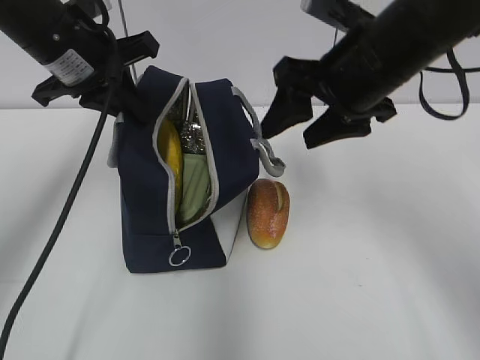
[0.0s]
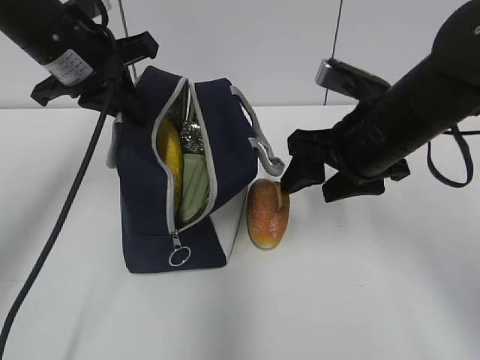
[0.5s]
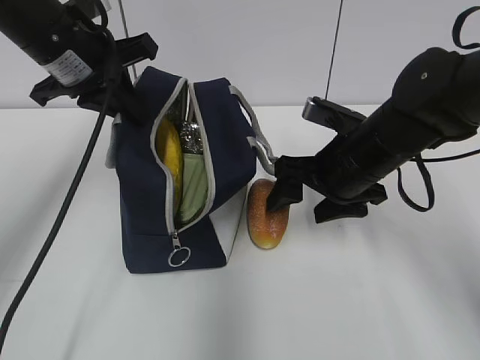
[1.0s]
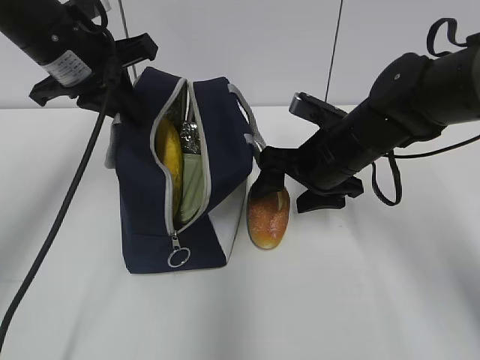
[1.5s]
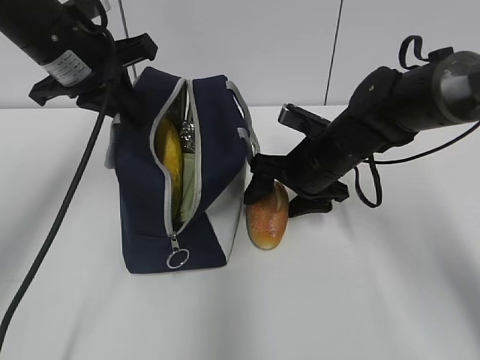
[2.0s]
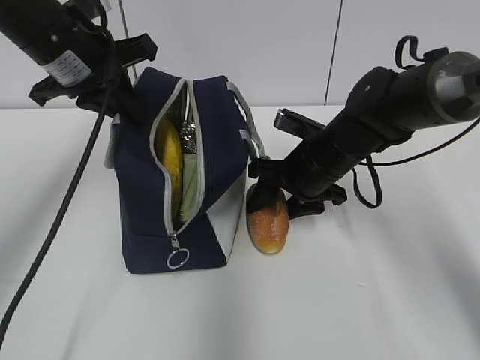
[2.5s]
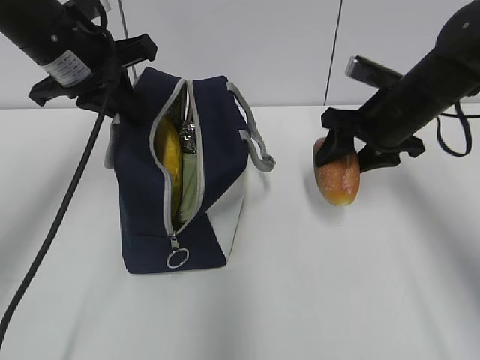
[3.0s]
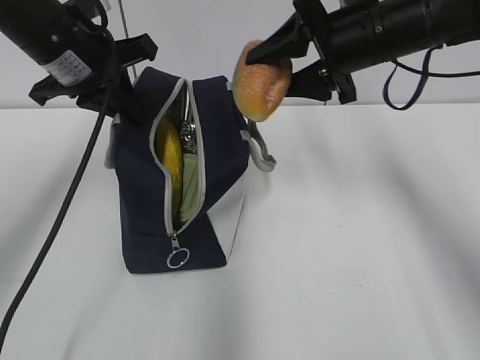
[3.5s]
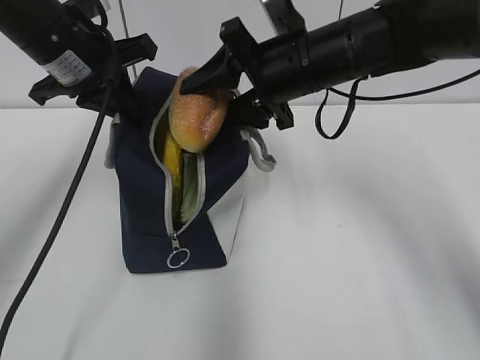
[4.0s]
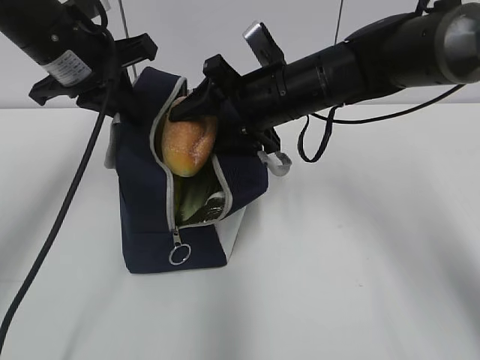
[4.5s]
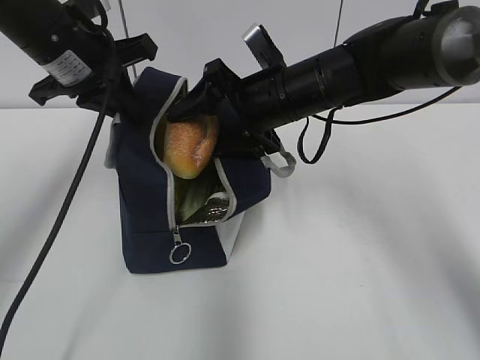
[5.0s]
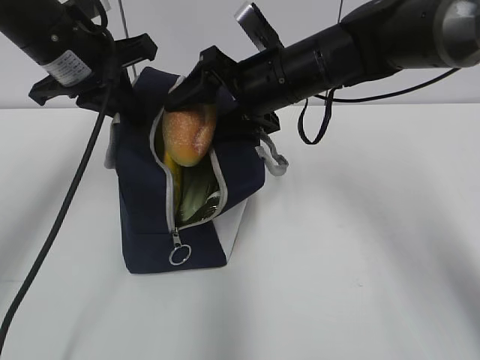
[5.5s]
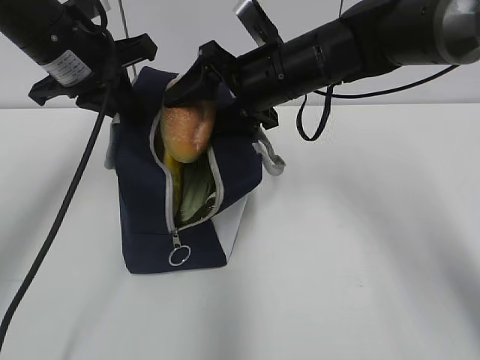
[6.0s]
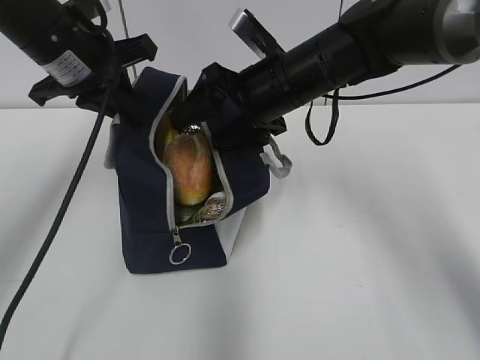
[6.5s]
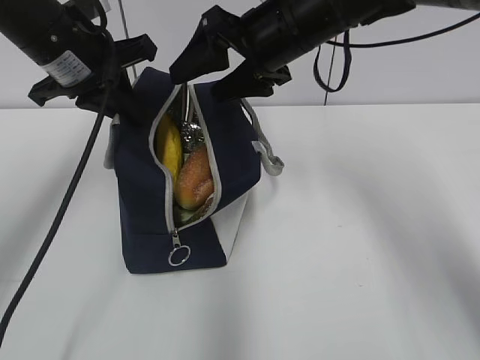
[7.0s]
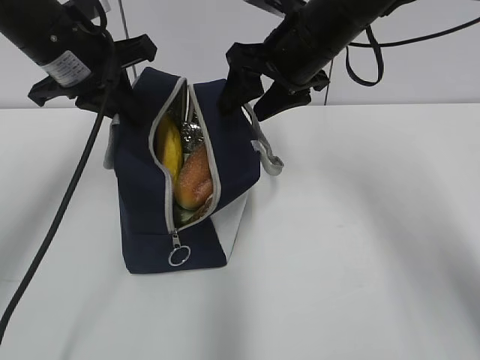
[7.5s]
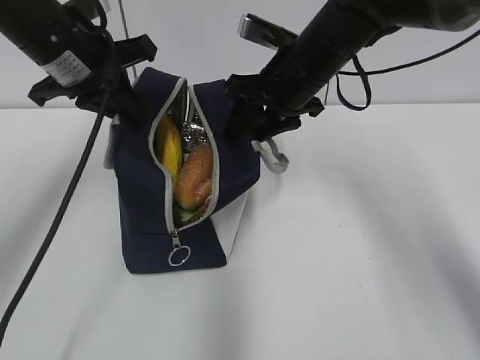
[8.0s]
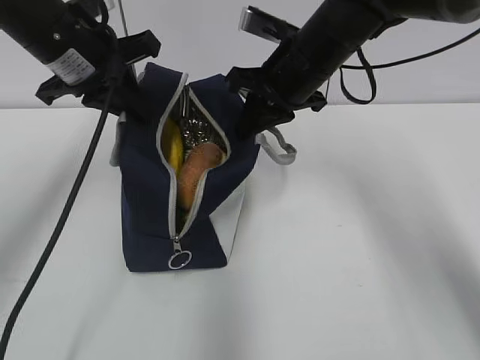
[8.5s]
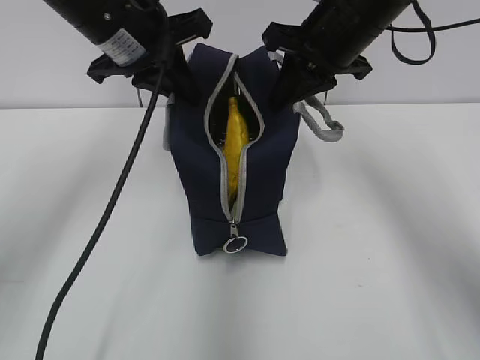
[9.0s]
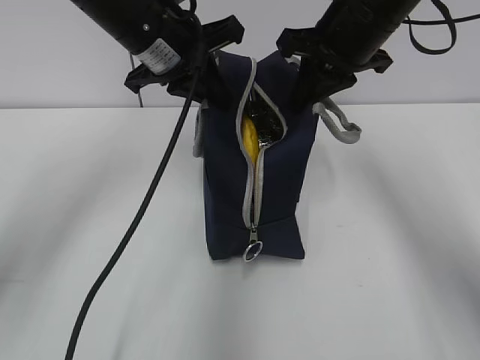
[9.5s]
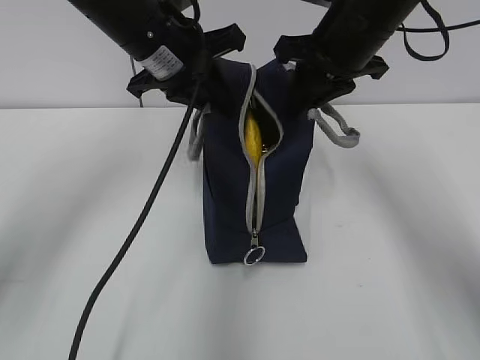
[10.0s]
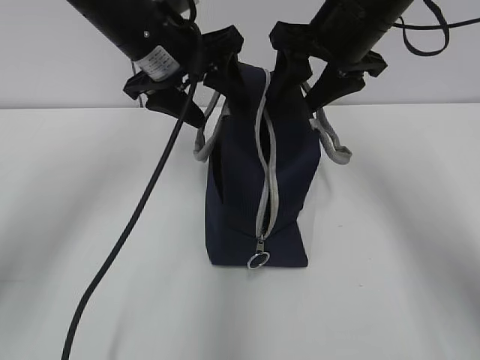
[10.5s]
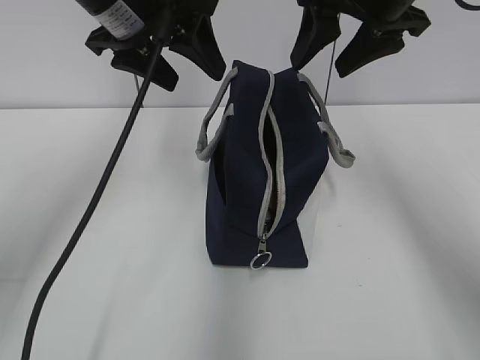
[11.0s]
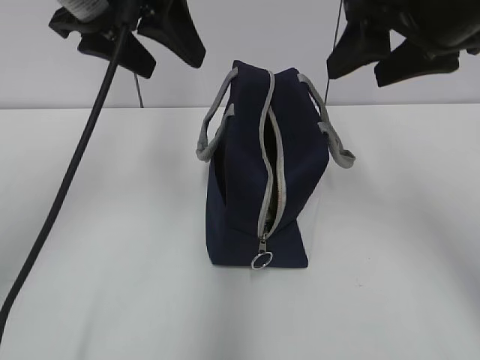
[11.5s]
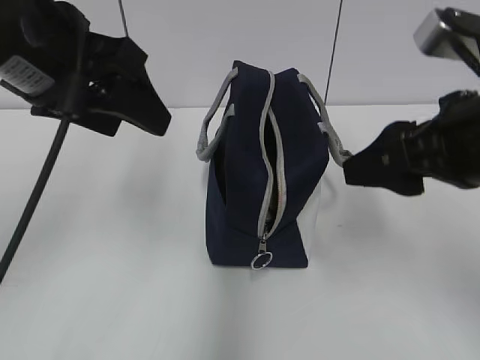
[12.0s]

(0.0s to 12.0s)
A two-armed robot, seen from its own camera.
Step, 0.0s - 2.0s: Grab the bread with your right hand.
Step, 2.5s - 7.0s: Place it into the bag with your right hand.
Step, 9.0s - 9.5s: Move the lunch bag to the right.
0.0s - 2.0s: The right gripper goes roughly 15 cm downward.
2.0s - 4.0s: The right gripper moves upward, about 15 cm.
4.0s - 6.0s: The grippers make only small movements.
8.0s - 10.0s: The left gripper goes approximately 10 cm to the right. The right gripper travels upward by some 5 cm, and closes.
10.0s - 12.0s: The right gripper moves backward, approximately 15 cm, and opens up; the left gripper shifts some 15 cm backward and to the left, and opens its fingers.

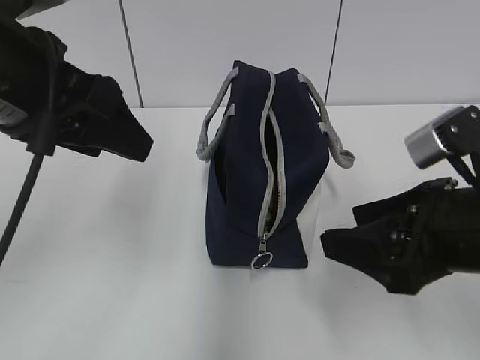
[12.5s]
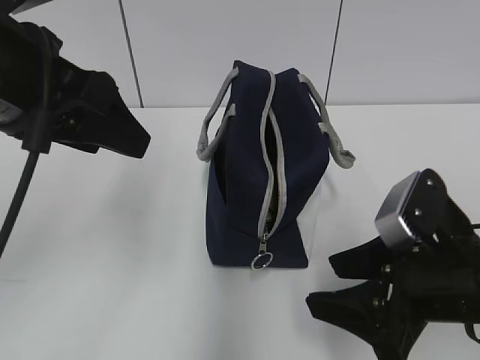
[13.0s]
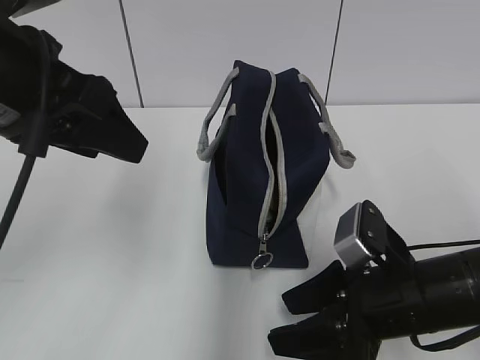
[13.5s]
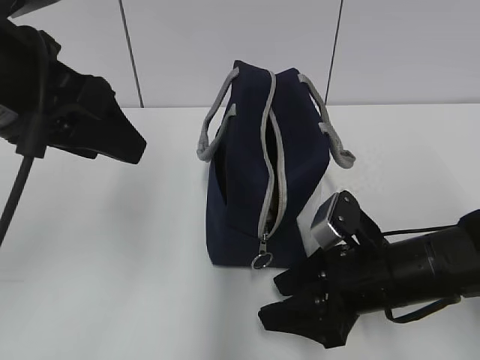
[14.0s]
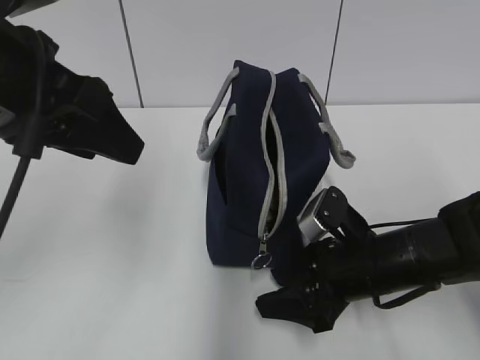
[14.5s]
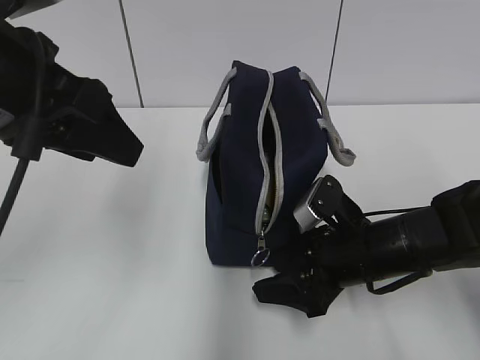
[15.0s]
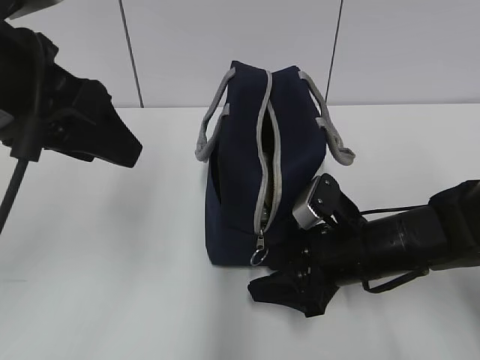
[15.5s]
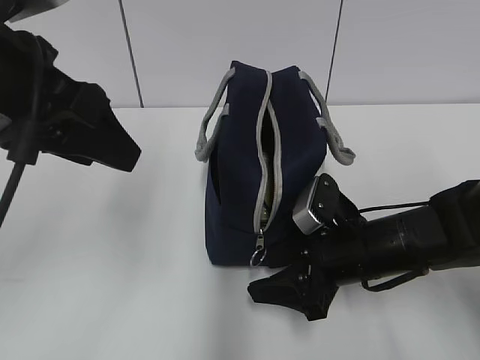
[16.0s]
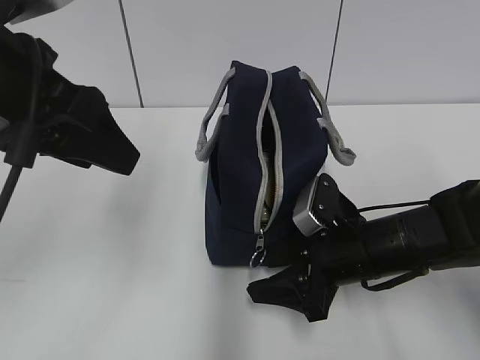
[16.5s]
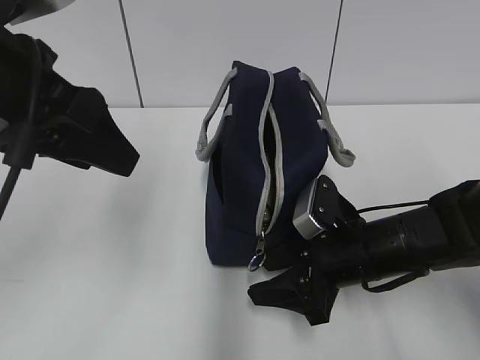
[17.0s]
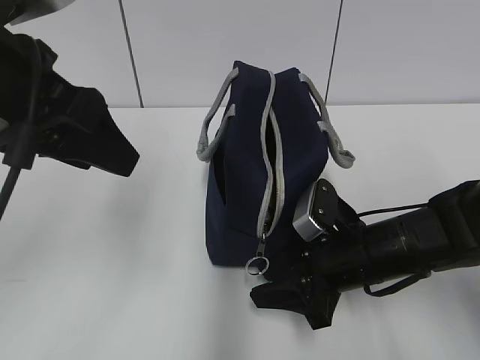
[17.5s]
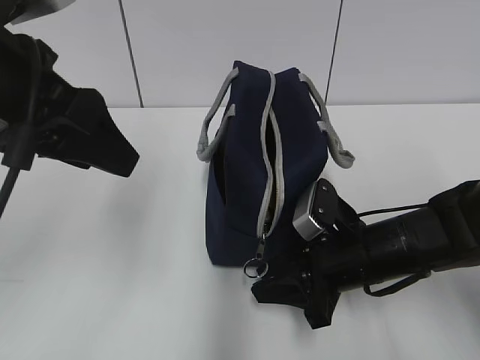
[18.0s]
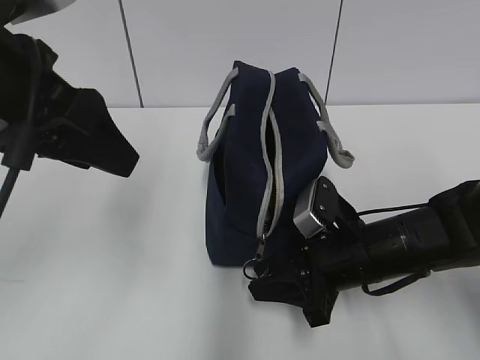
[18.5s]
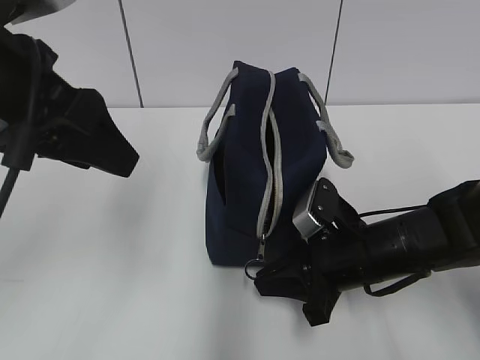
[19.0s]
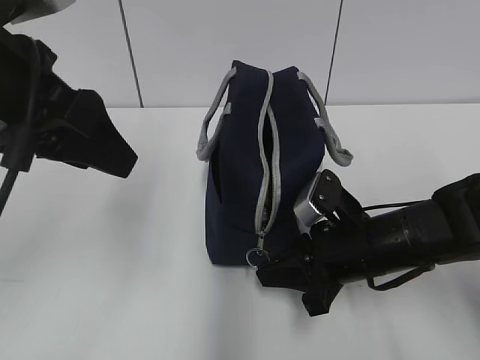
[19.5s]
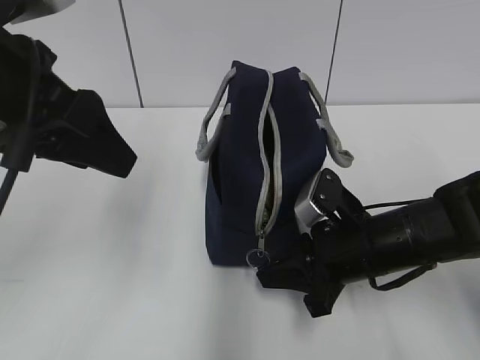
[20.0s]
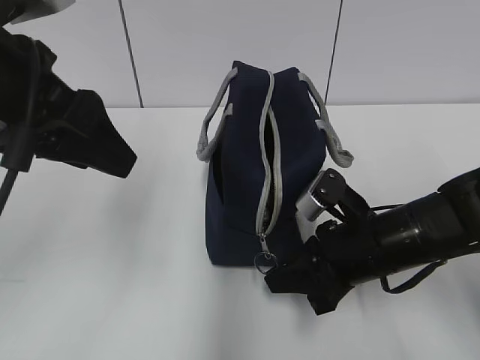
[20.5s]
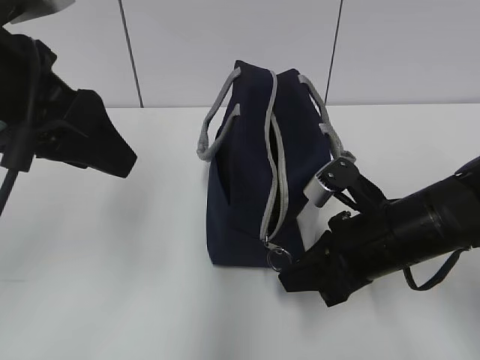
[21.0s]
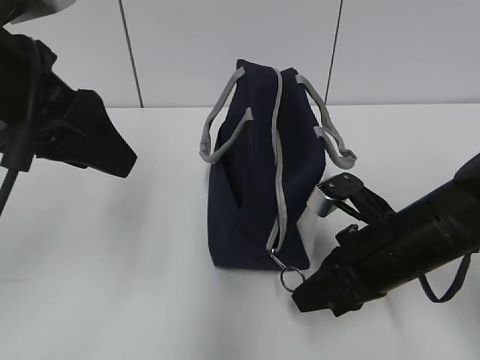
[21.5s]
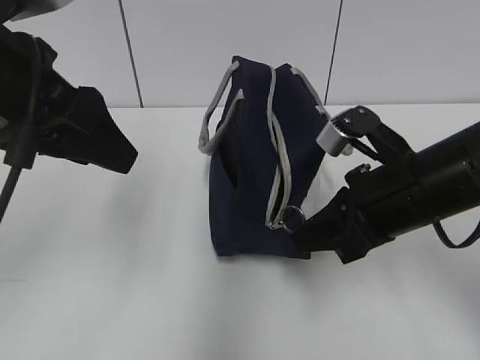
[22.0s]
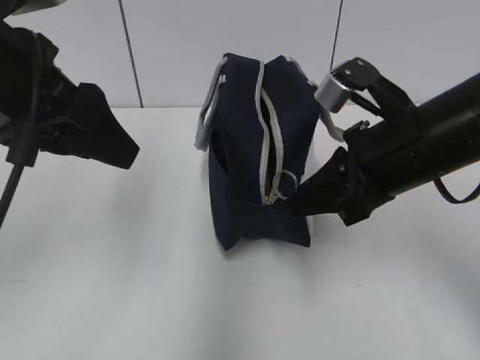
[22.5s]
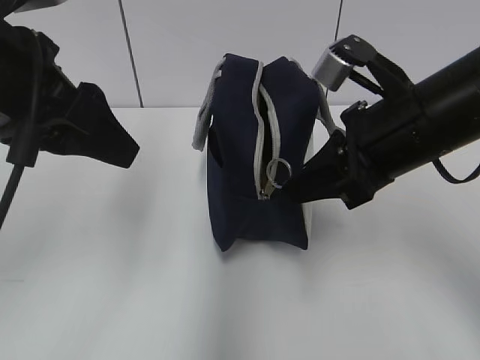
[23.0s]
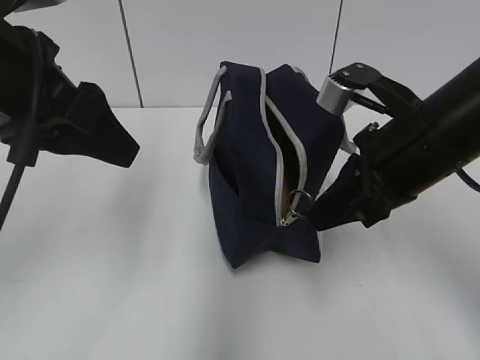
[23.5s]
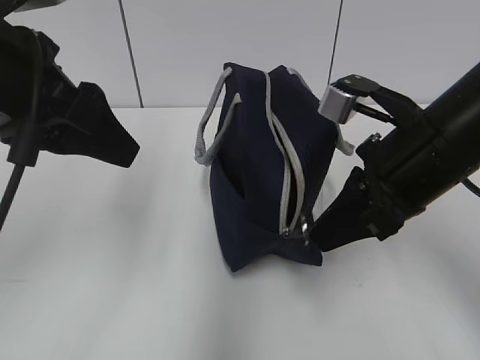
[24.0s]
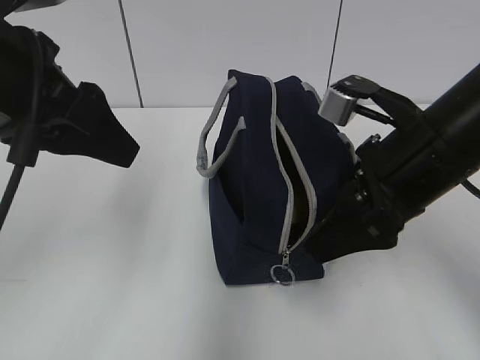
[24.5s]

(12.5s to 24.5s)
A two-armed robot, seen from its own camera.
12.5s - 14.5s: The right gripper is displaced downward and forward by about 15 cm.
14.5s - 16.5s: There are only small adjustments of the grippers.
16.5s - 18.5s: The right gripper closes.
18.5s - 20.5s: The right gripper closes.
20.5s - 22.5s: The right gripper goes about 15 cm upward.
22.5s - 24.5s: The right gripper opens its fingers.

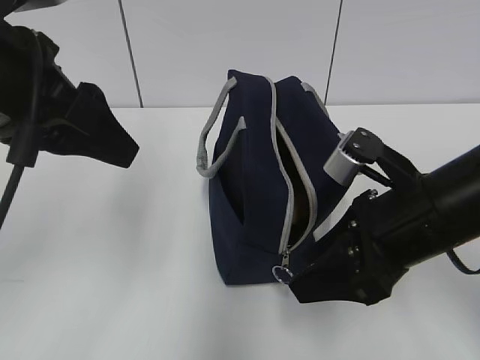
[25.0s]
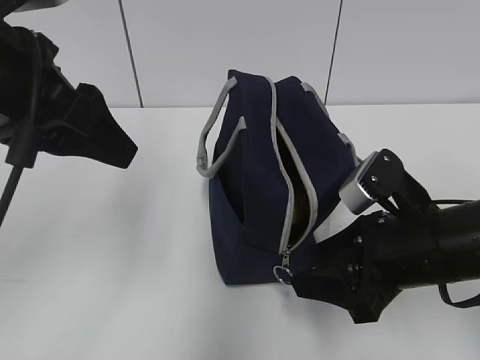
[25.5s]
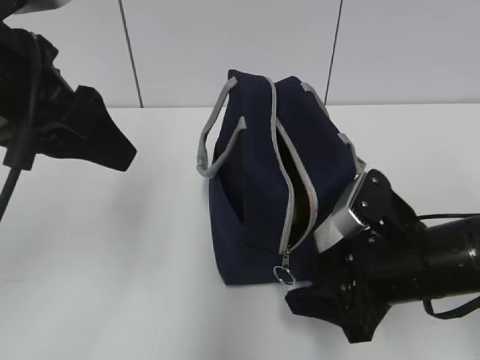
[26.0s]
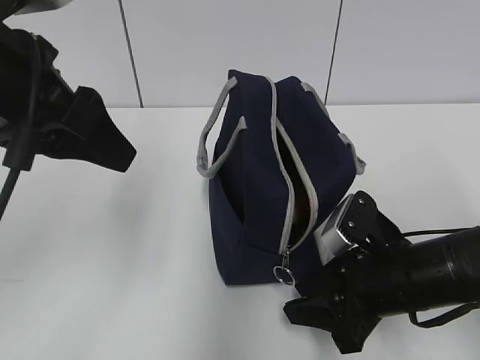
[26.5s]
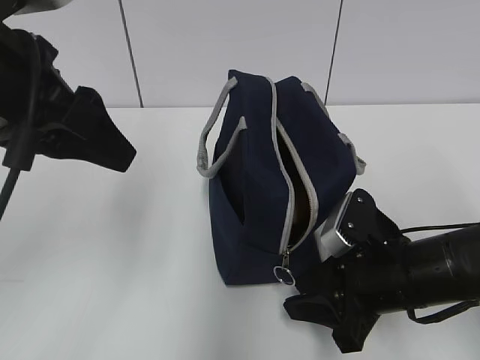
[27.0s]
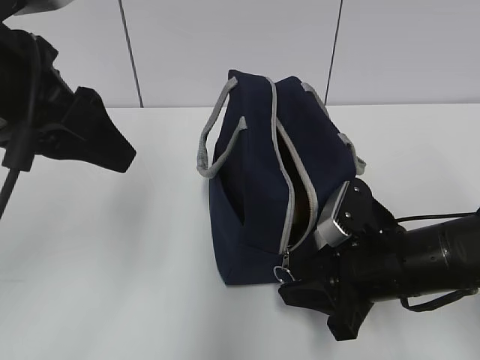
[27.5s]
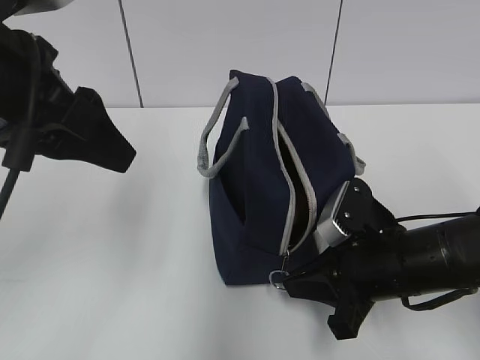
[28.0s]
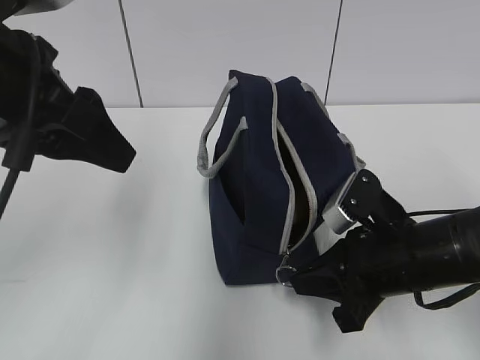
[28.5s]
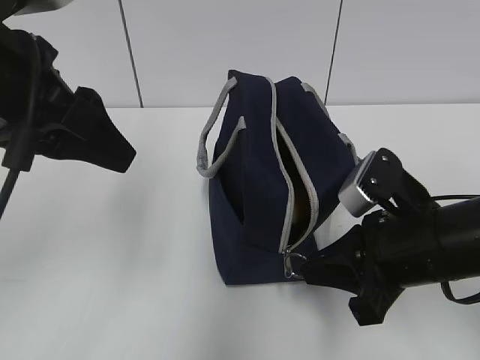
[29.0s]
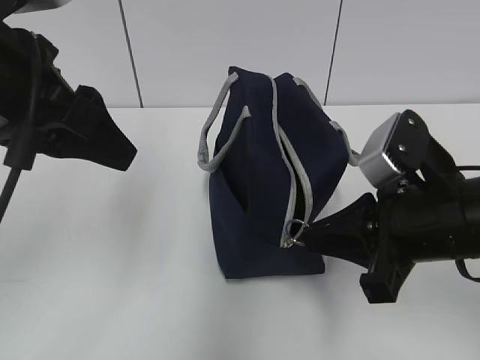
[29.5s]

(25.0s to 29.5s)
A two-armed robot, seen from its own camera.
25.0s - 27.0s: The right gripper is displaced downward by roughly 10 cm.
27.0s - 29.5s: The right gripper travels upward by approximately 10 cm, and closes up.
